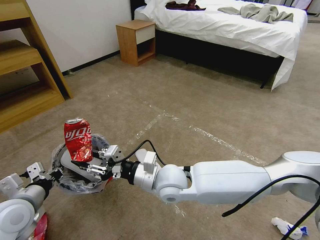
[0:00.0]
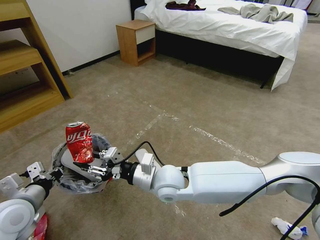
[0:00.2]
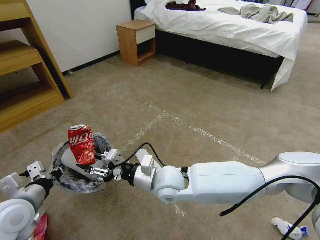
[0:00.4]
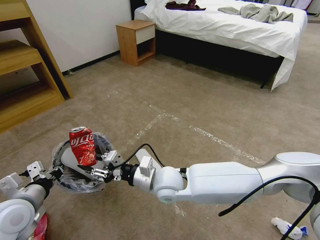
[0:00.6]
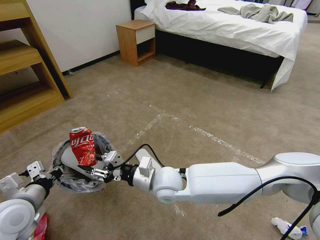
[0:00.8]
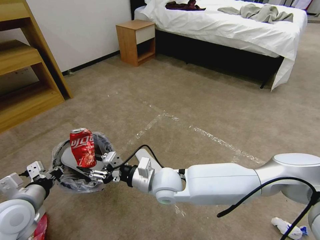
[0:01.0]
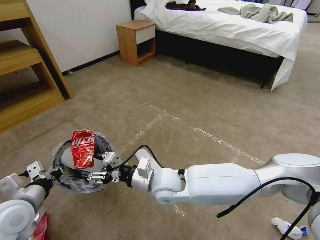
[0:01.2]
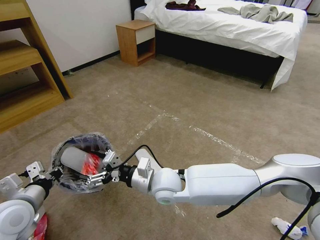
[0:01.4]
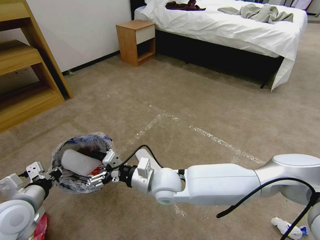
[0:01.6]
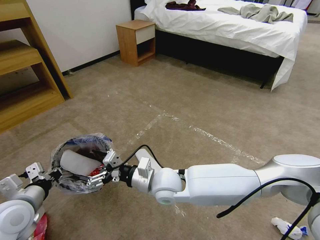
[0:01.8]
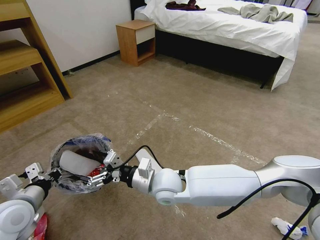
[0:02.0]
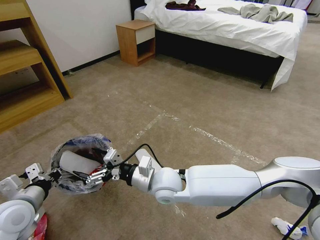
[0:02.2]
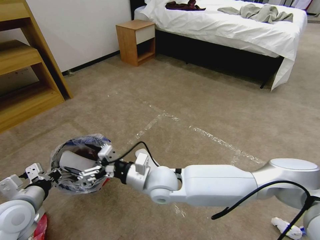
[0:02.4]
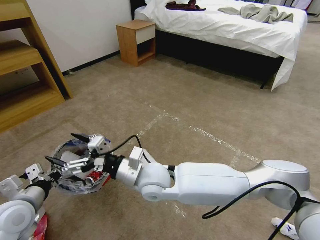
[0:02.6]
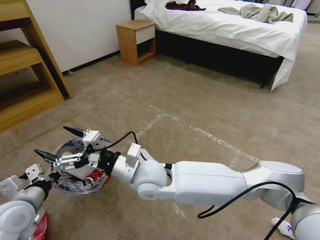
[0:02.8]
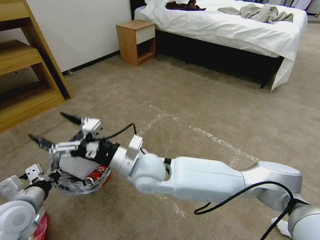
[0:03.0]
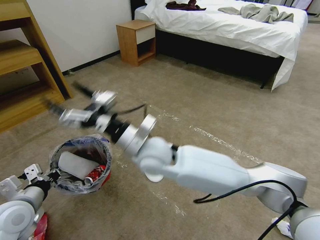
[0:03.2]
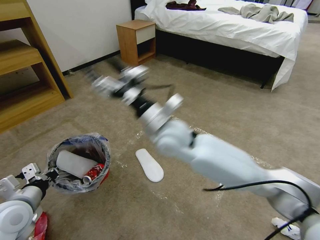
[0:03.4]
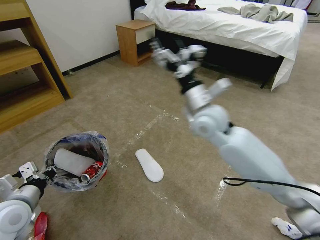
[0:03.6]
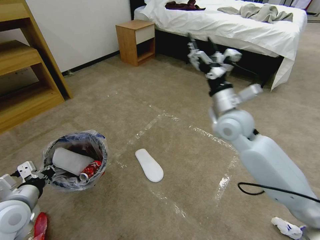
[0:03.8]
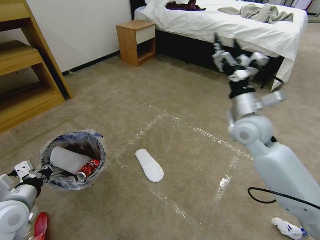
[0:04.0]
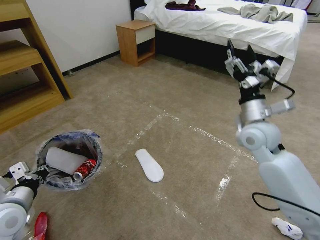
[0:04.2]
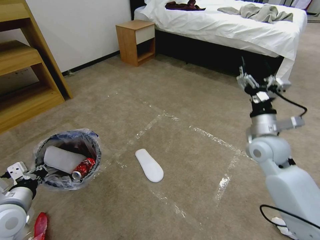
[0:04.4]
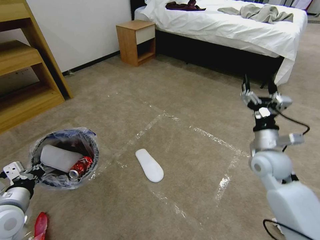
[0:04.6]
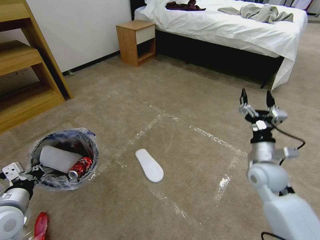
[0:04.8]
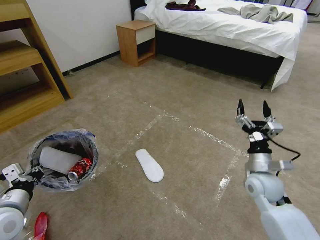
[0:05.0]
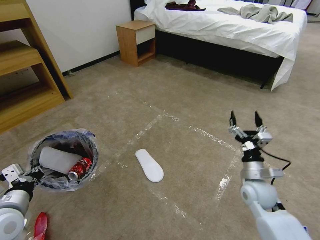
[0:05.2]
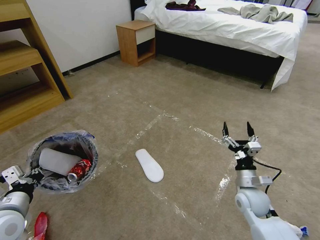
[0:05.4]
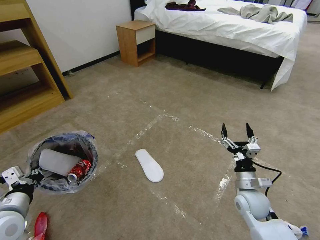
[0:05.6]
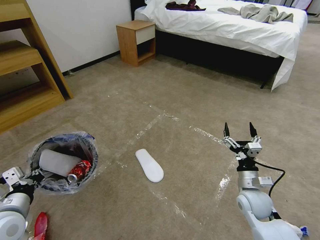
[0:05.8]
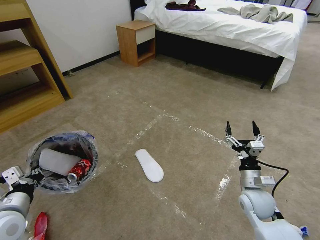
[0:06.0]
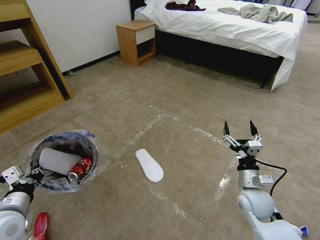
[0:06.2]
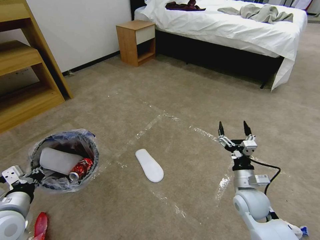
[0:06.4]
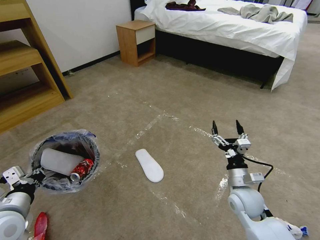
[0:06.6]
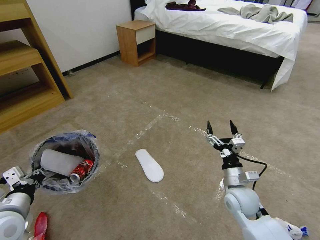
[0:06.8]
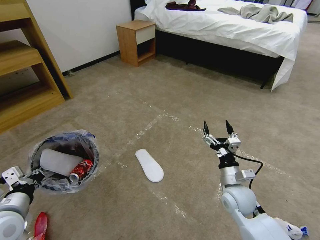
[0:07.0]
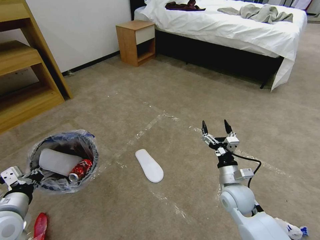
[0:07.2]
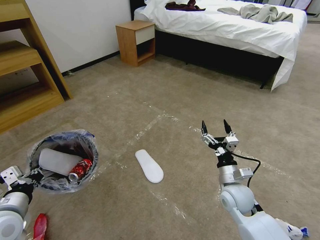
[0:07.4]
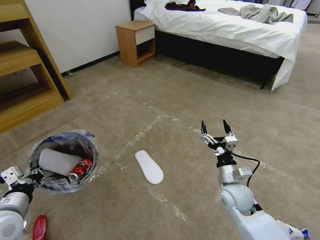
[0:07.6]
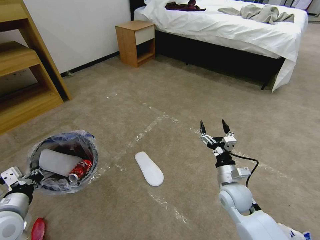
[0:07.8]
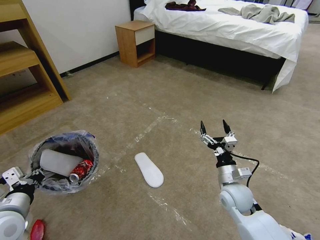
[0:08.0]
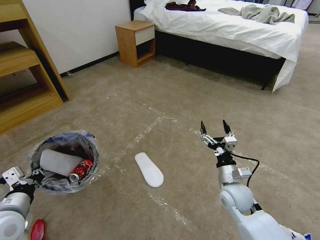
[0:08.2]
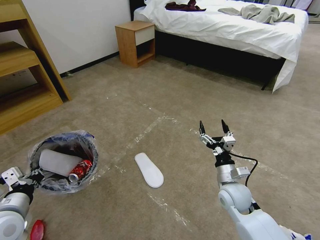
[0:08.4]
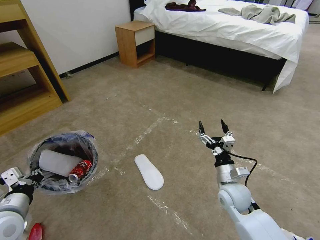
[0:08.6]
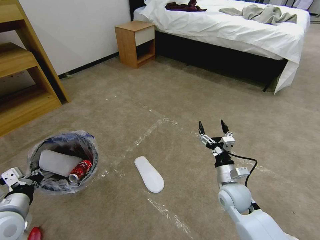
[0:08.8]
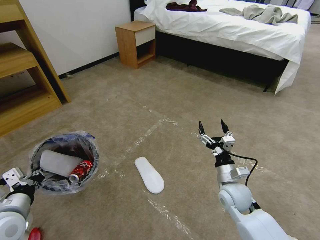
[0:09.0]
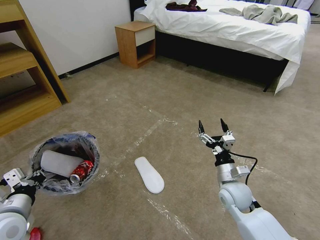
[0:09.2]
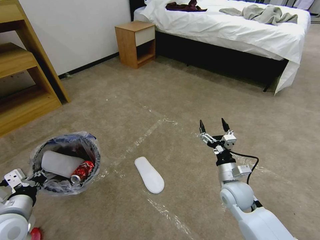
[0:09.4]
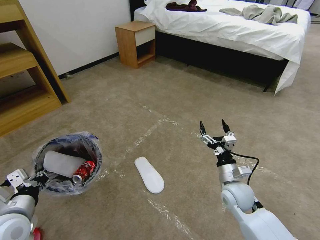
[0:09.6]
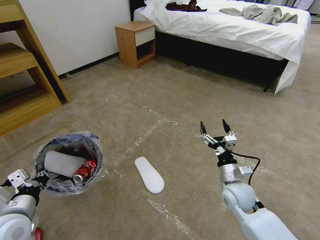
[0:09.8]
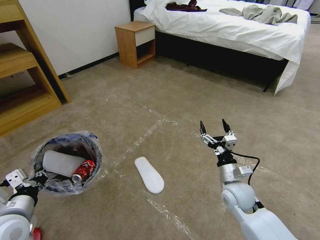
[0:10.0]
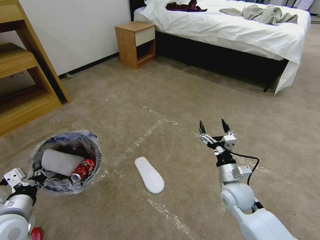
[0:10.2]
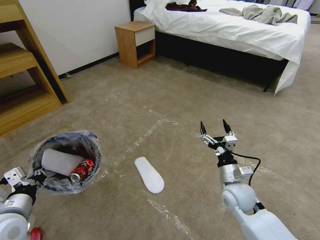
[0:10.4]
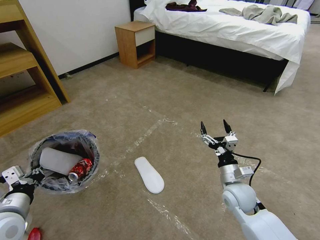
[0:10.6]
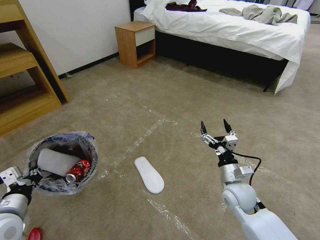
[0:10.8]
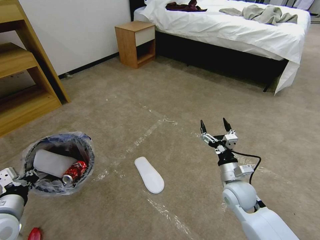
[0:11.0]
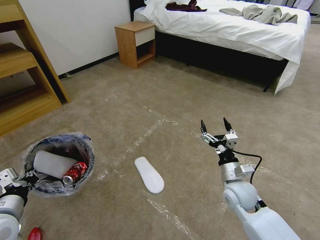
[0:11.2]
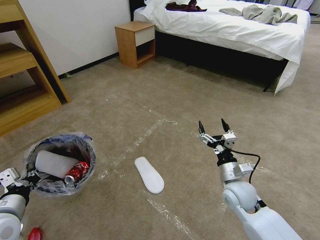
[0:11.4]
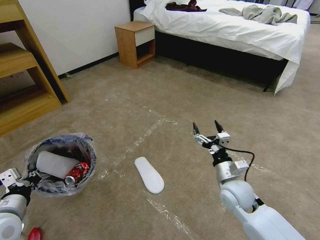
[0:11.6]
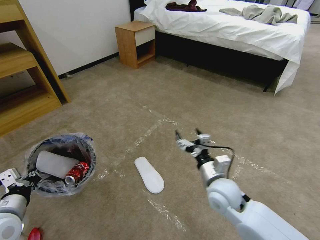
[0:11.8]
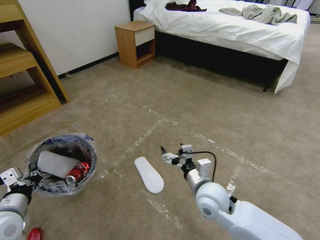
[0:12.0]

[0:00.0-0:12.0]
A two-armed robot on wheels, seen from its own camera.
Task of the whole recording: Pick up the trash bin and place the garbage on the floor into it.
0:00.0 to 0:01.6: The right gripper opens up.
0:01.6 to 0:03.0: The right gripper goes approximately 10 cm upward and to the left.
0:03.0 to 0:04.4: The right gripper travels to the right by about 35 cm.
0:04.4 to 0:06.0: The right gripper shifts approximately 20 cm downward and backward.
0:06.0 to 0:07.6: The right gripper goes approximately 5 cm to the left.
0:07.6 to 0:09.0: Neither gripper changes place.
0:09.0 to 0:10.4: There are only small adjustments of the grippers.
0:10.4 to 0:12.0: The right gripper is displaced to the left by about 10 cm.

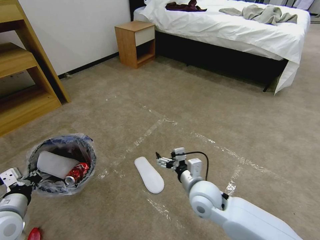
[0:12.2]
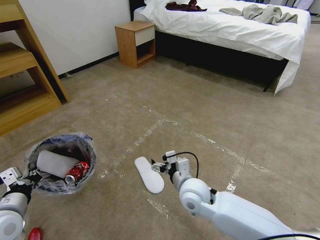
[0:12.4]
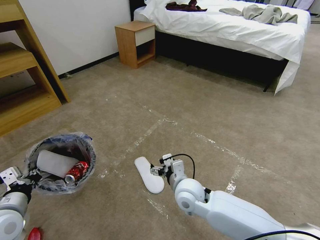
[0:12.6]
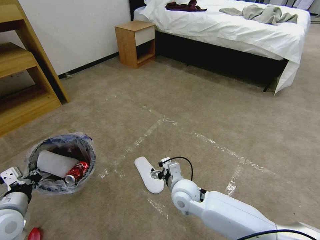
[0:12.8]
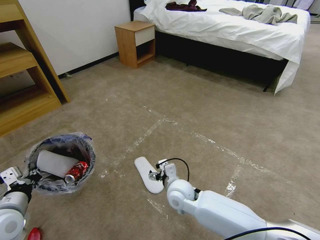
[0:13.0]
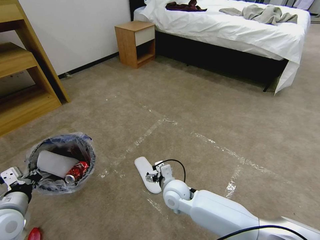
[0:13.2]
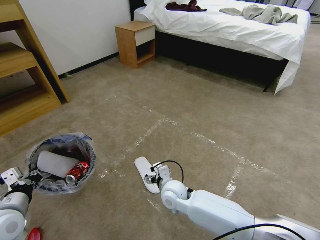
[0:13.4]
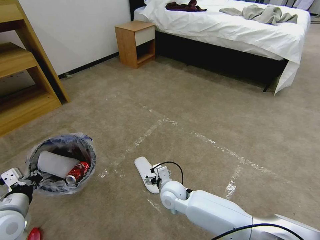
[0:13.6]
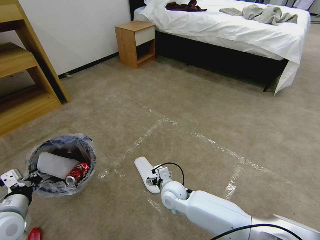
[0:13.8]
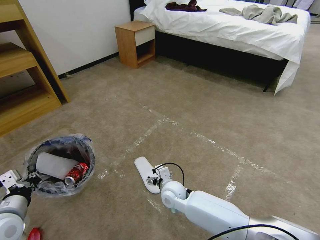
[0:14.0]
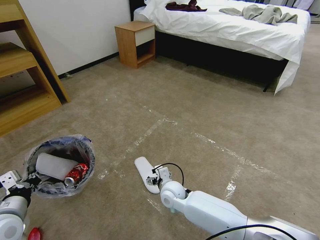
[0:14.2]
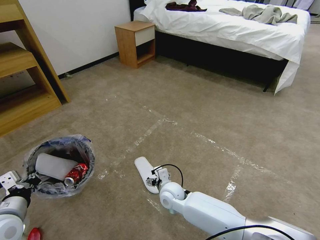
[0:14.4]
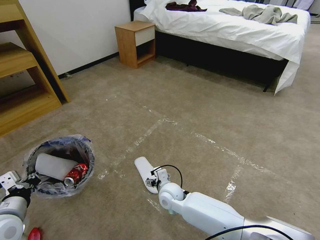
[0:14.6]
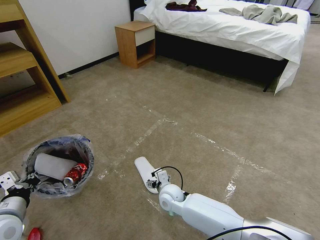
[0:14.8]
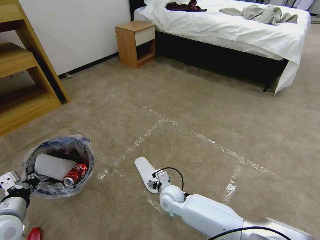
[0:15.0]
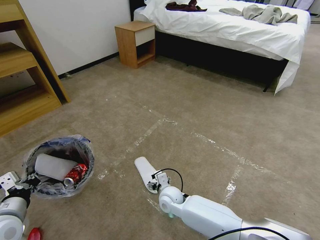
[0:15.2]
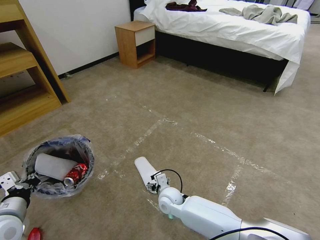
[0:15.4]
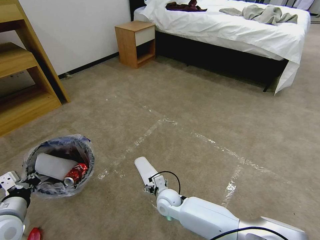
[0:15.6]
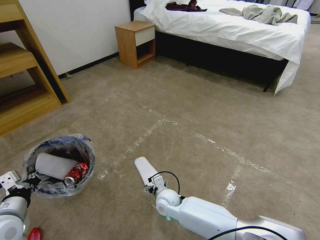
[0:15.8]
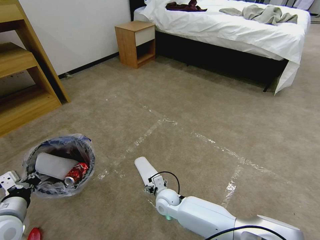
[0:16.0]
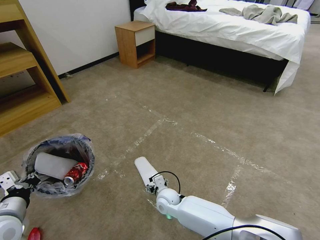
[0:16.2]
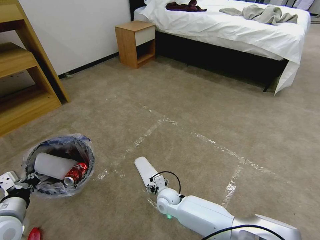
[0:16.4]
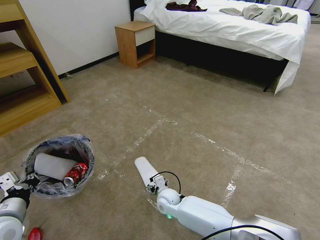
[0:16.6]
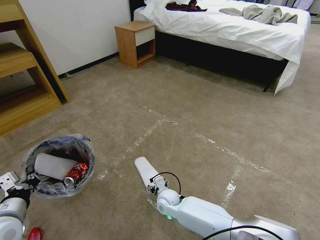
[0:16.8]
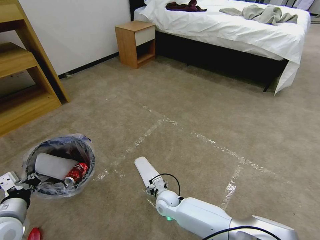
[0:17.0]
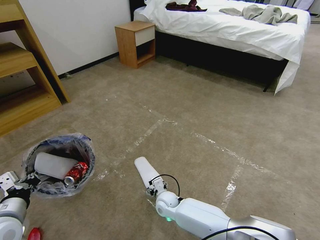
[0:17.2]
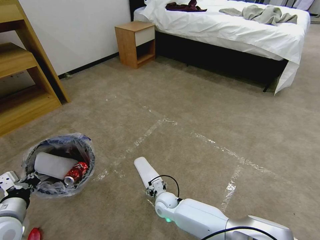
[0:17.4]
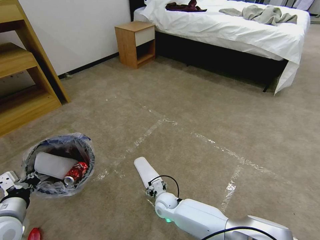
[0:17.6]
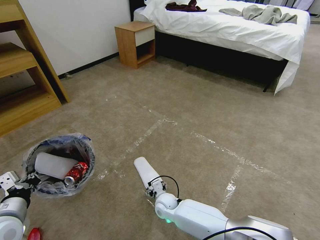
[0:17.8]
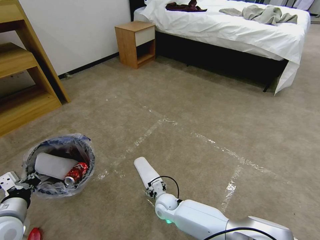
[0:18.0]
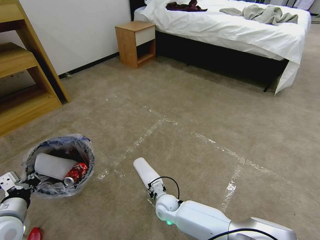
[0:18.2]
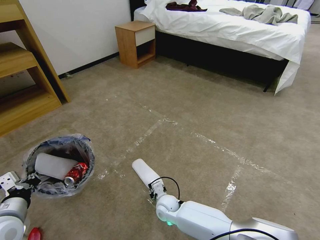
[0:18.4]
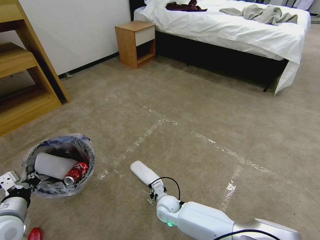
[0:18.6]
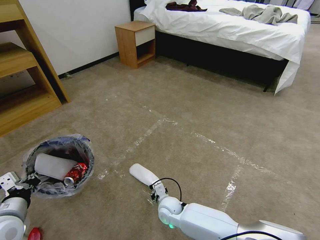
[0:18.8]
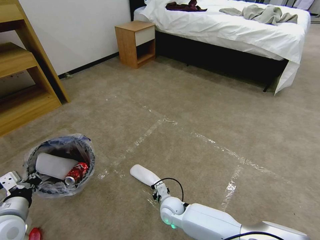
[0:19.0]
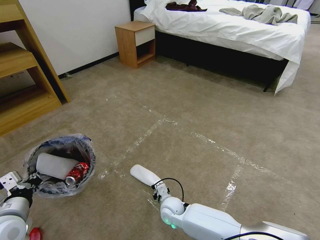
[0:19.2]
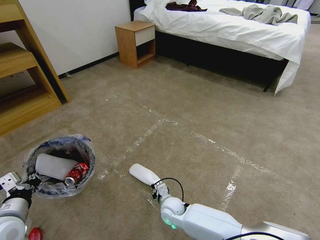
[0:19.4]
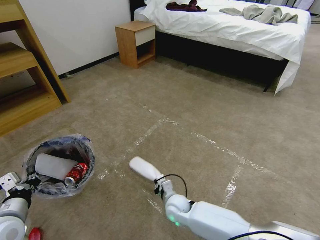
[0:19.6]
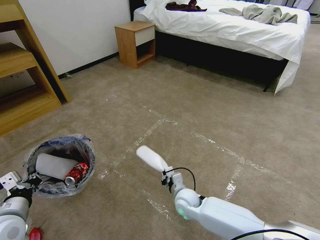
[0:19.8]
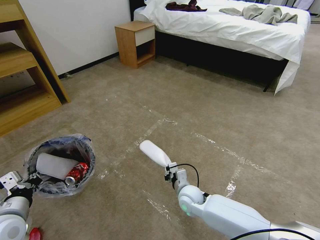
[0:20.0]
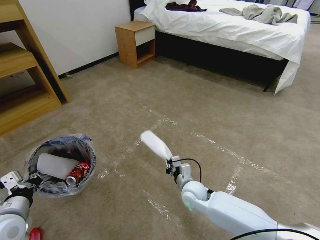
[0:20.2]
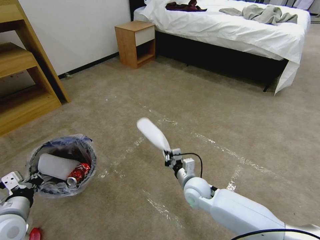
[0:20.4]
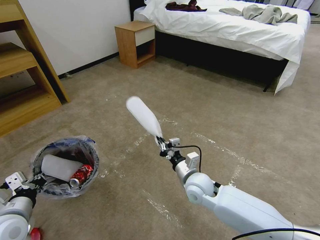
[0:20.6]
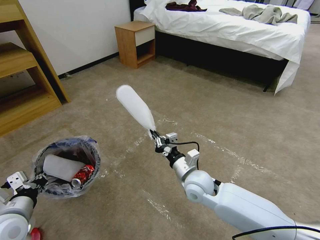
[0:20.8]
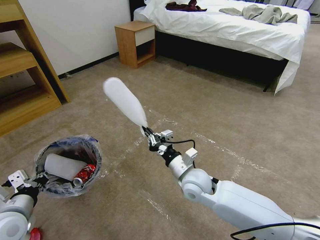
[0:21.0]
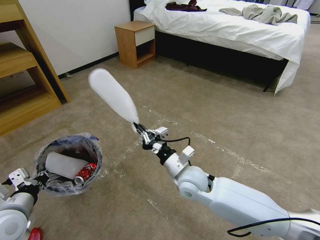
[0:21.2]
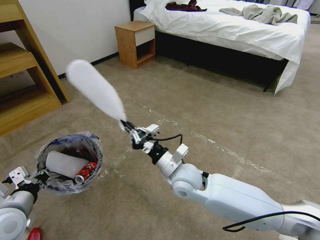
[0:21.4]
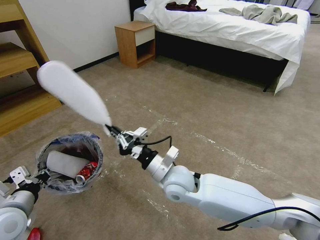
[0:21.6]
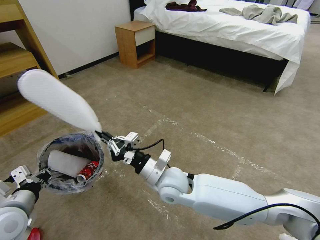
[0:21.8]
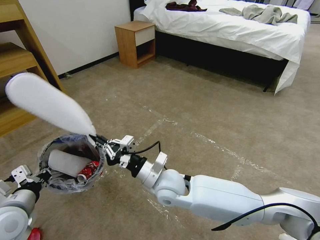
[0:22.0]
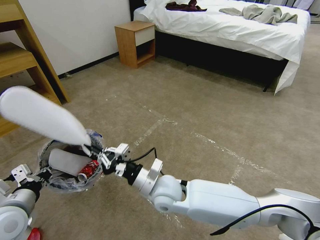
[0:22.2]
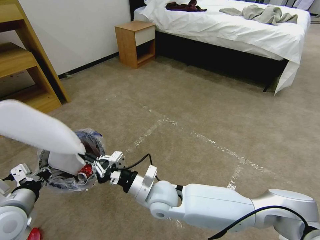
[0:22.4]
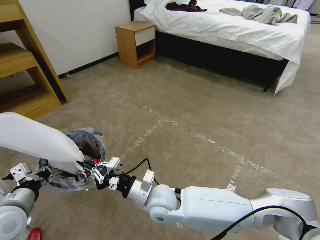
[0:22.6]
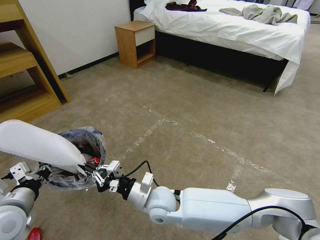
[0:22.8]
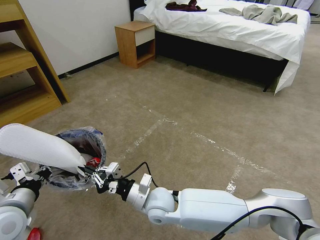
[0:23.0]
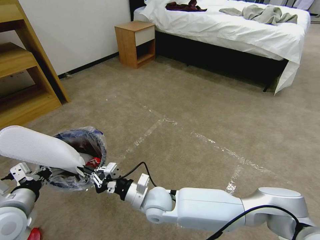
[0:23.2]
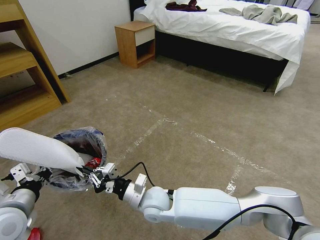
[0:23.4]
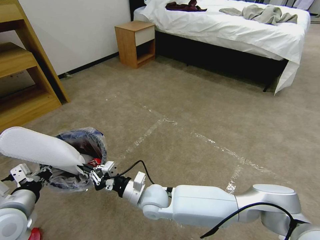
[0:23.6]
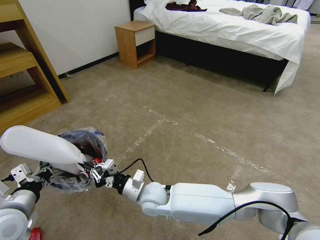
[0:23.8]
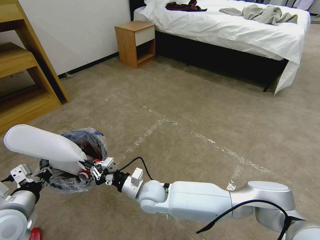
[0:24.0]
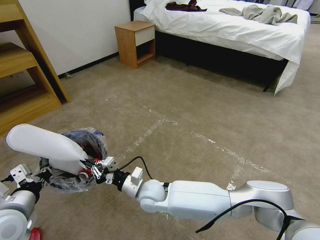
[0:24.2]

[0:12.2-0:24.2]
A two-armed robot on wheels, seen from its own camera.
Task of the whole recording: Pick up the trash bin and place the garbage on the floor into it.
0:12.2 to 0:13.8: The right gripper moves downward and to the left, approximately 15 cm.
0:13.8 to 0:15.2: The grippers move only a little.
0:15.2 to 0:16.6: The grippers stay close to where they were, moving slightly.
0:16.6 to 0:18.2: The grippers make only small movements.
0:18.2 to 0:19.8: The right gripper travels to the right and upward by approximately 10 cm, and closes.
0:19.8 to 0:21.2: The right gripper is displaced upward by some 15 cm.
0:21.2 to 0:22.6: The right gripper moves to the left and backward, approximately 10 cm.
0:22.6 to 0:24.2: The right gripper changes place by roughly 5 cm.
